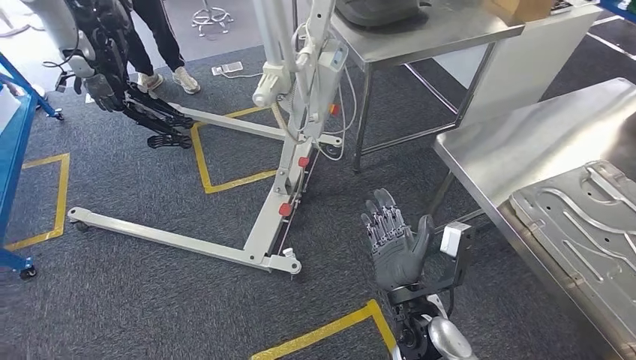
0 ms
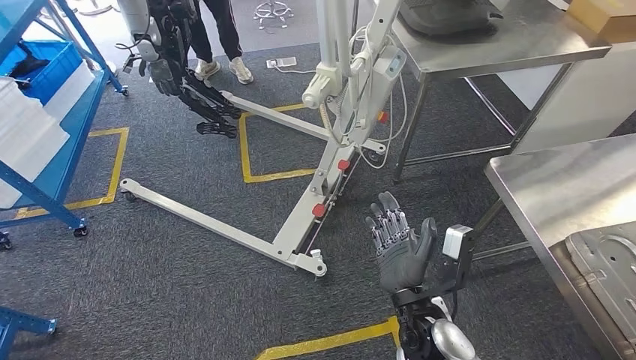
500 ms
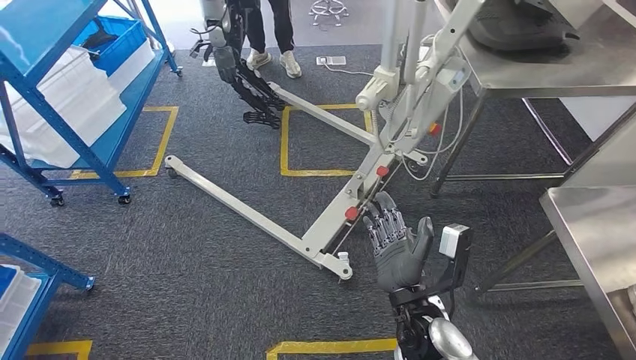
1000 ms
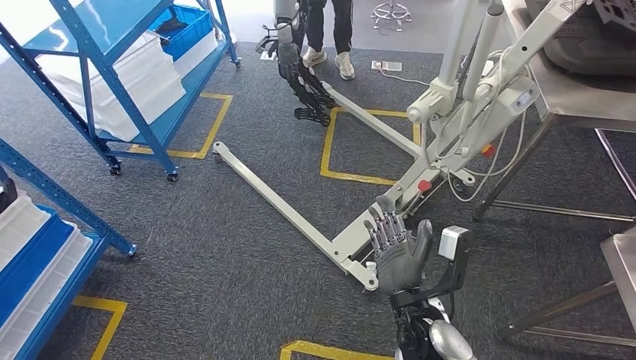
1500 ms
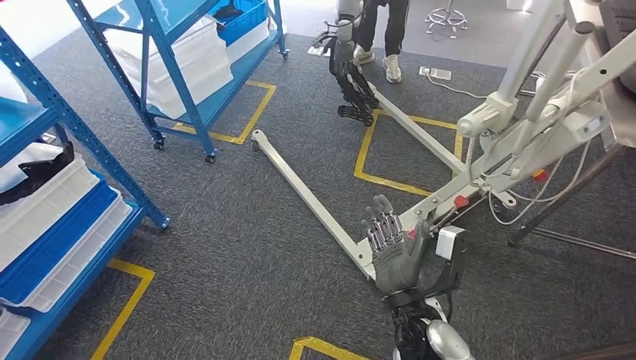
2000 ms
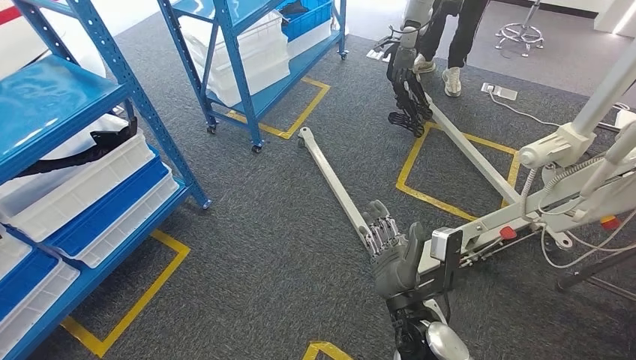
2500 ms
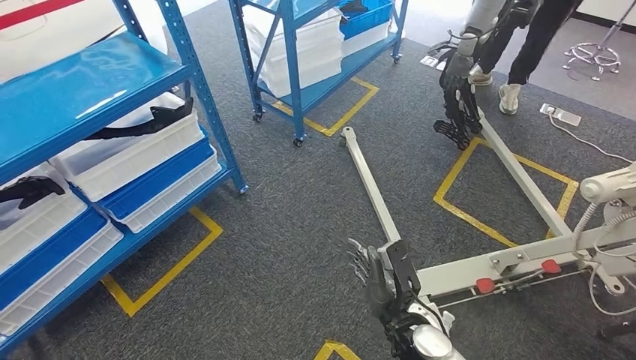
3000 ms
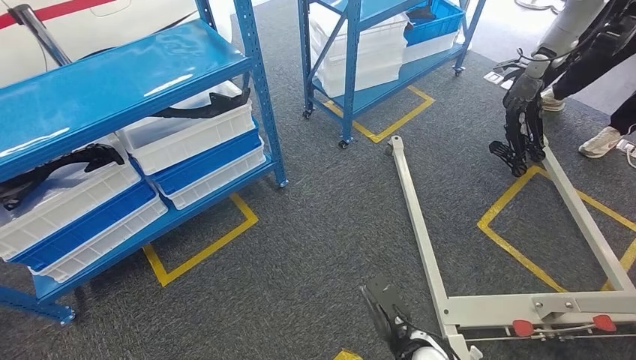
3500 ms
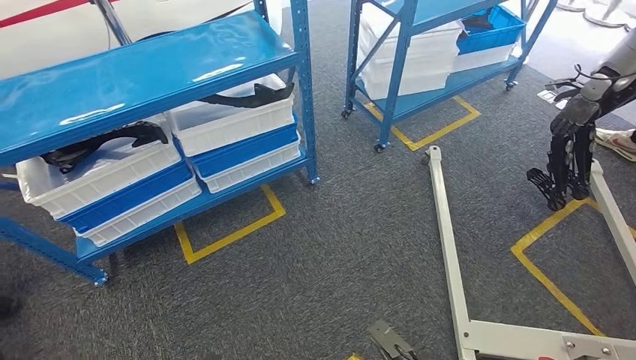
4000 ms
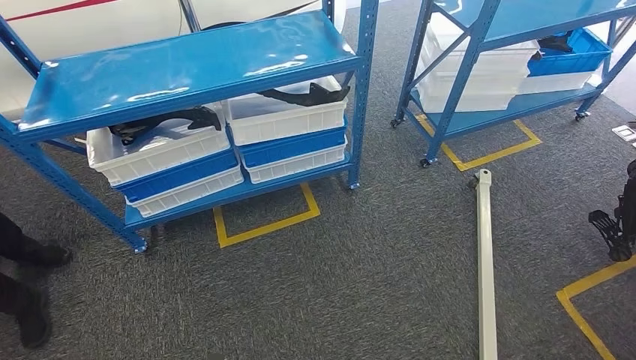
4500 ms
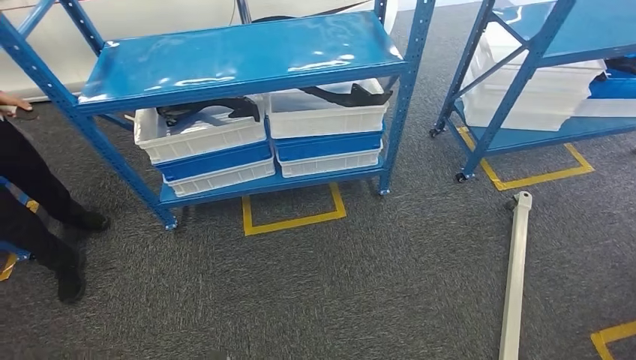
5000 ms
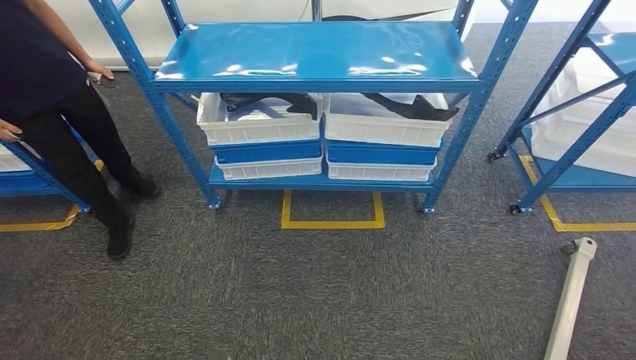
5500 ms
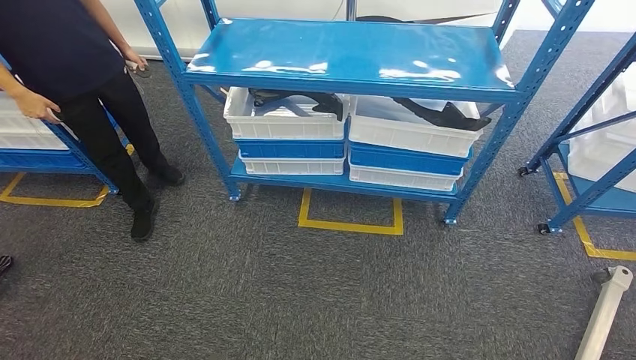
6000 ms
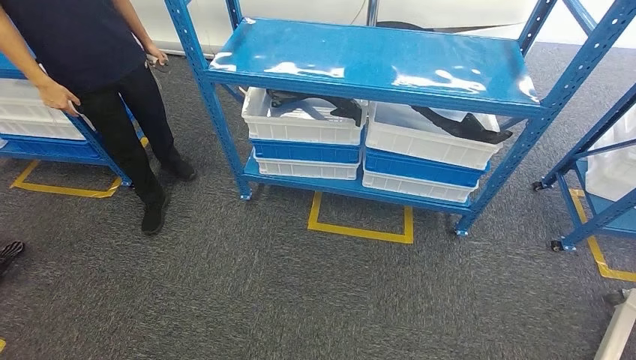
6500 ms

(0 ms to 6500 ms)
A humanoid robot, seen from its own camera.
Step, 0 ms - 6500 ms: Move to the initial position of the shelf.
